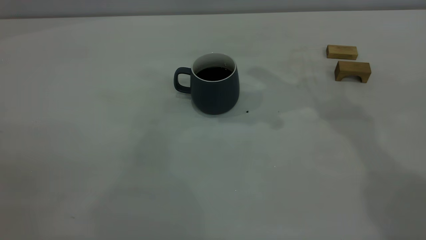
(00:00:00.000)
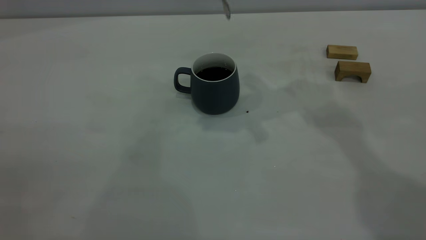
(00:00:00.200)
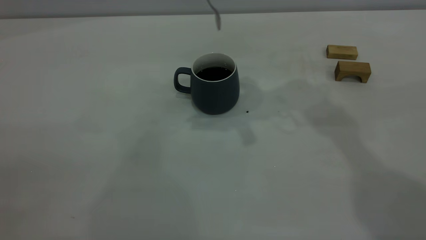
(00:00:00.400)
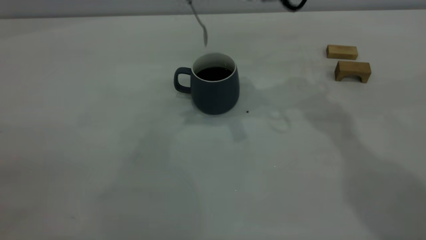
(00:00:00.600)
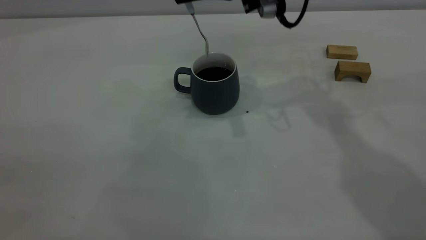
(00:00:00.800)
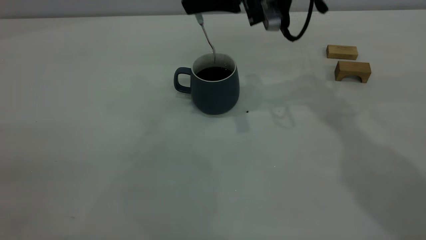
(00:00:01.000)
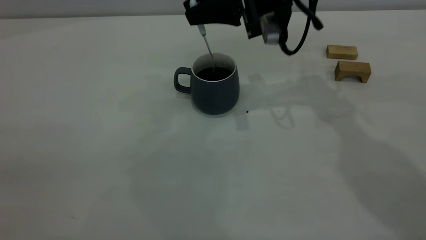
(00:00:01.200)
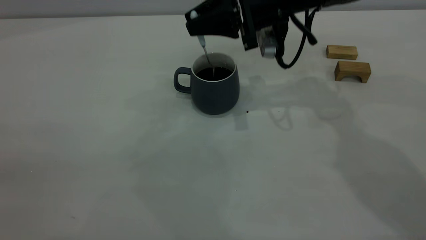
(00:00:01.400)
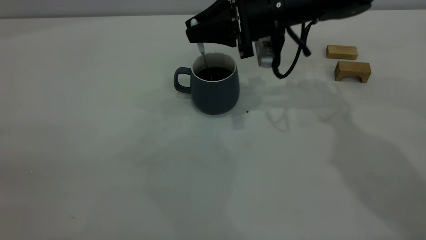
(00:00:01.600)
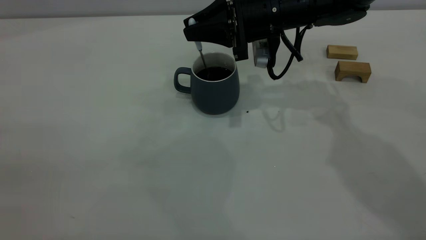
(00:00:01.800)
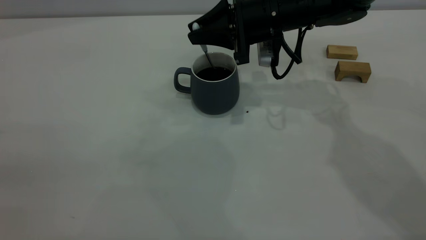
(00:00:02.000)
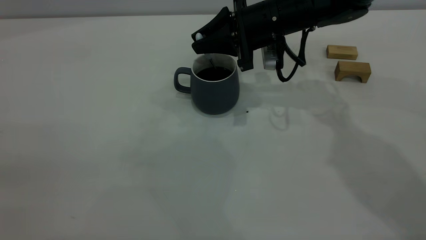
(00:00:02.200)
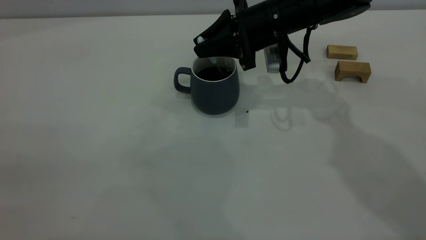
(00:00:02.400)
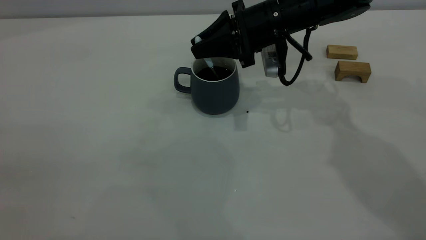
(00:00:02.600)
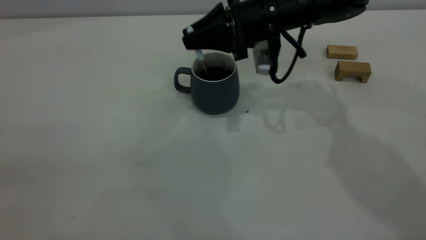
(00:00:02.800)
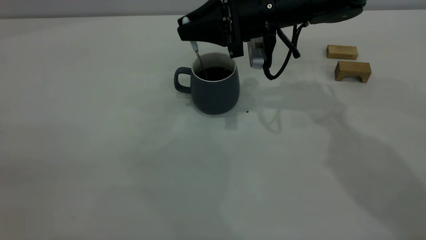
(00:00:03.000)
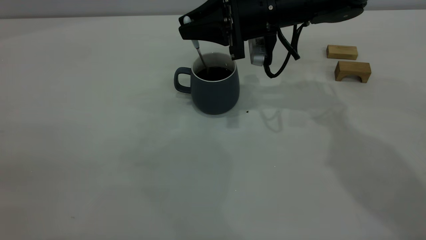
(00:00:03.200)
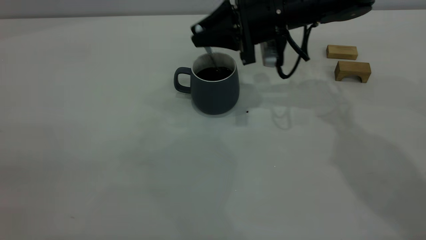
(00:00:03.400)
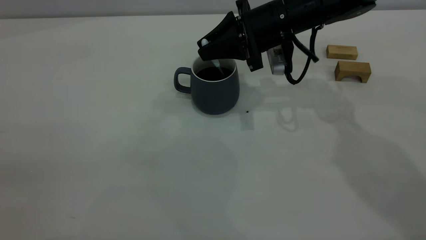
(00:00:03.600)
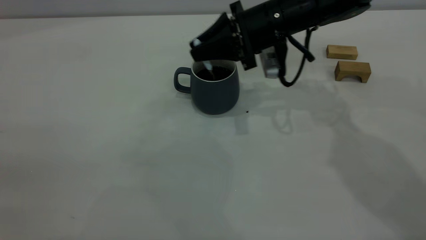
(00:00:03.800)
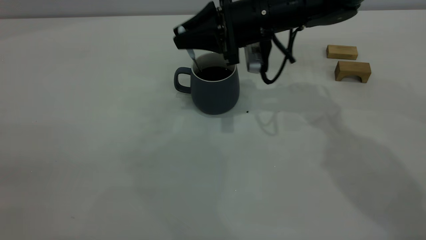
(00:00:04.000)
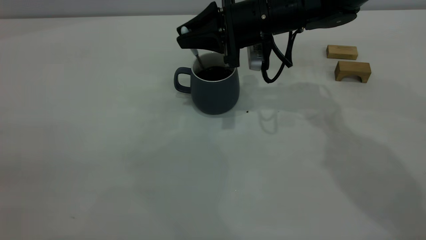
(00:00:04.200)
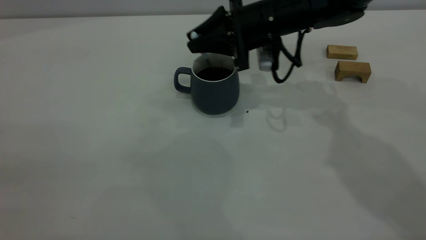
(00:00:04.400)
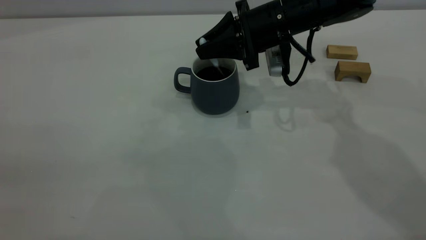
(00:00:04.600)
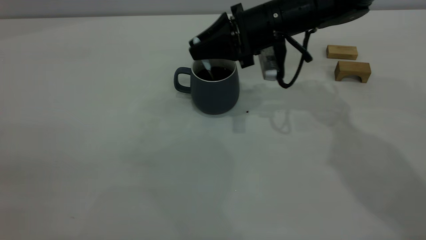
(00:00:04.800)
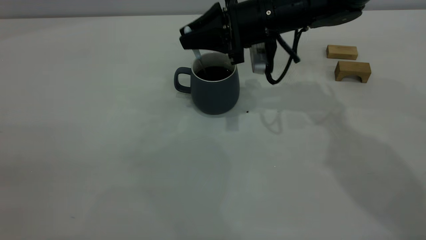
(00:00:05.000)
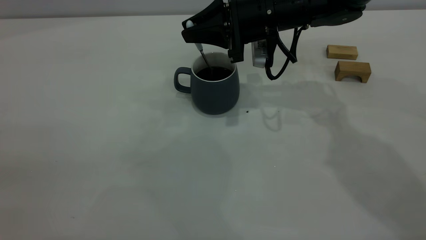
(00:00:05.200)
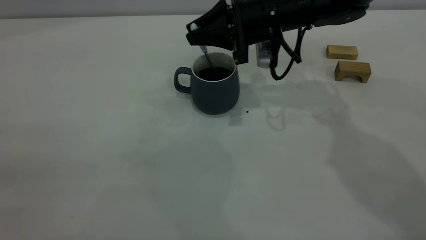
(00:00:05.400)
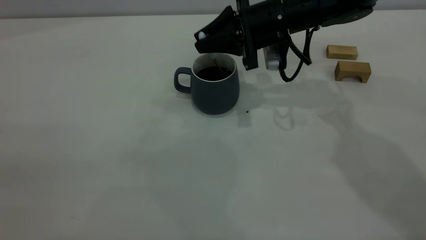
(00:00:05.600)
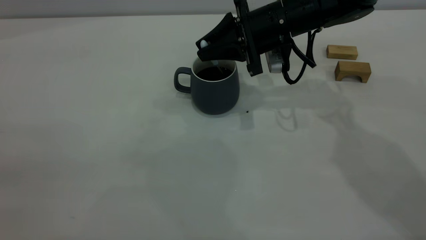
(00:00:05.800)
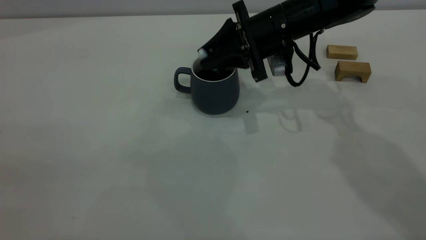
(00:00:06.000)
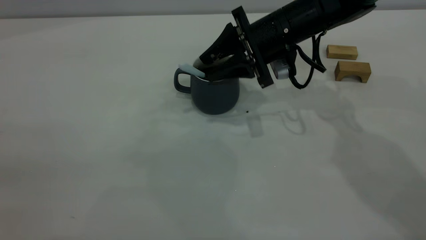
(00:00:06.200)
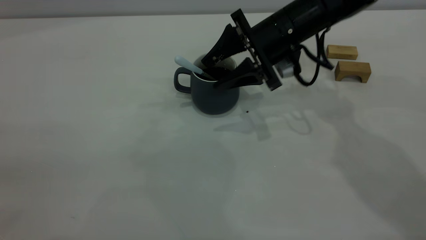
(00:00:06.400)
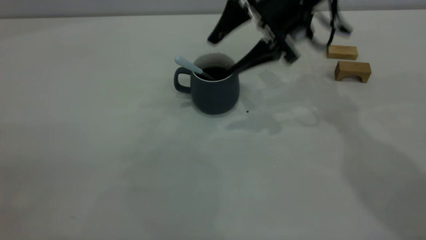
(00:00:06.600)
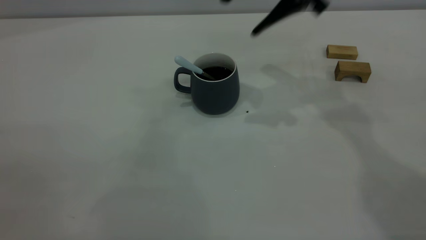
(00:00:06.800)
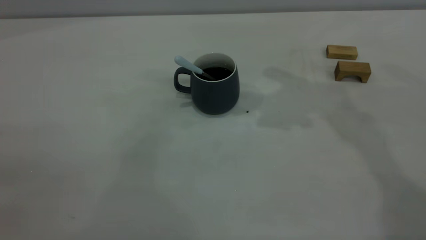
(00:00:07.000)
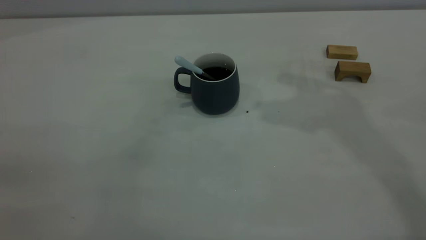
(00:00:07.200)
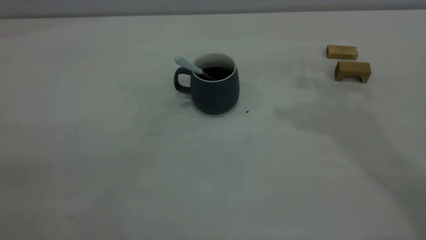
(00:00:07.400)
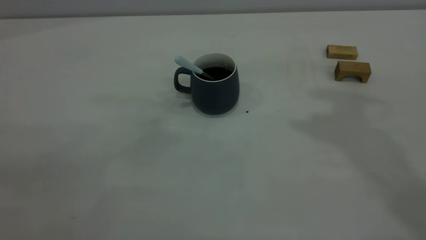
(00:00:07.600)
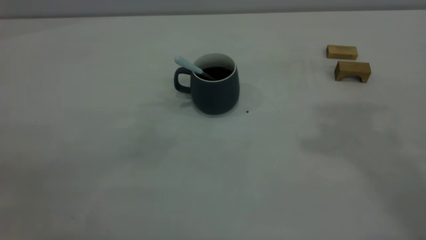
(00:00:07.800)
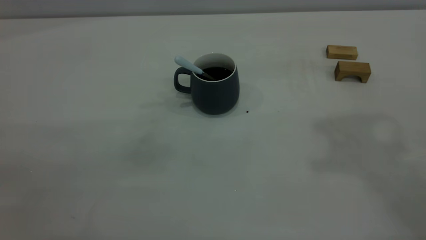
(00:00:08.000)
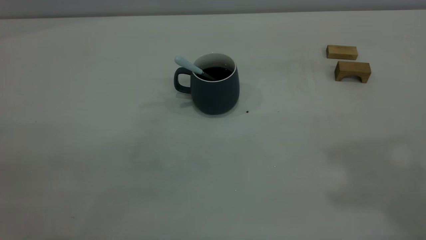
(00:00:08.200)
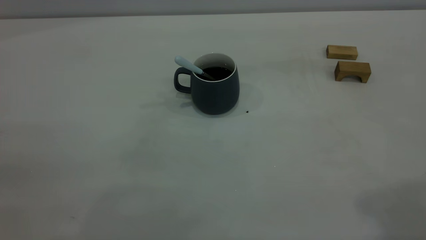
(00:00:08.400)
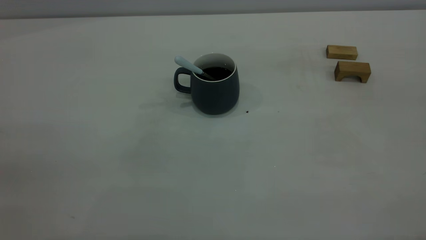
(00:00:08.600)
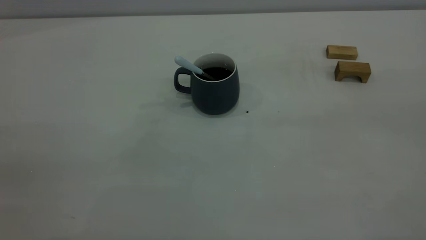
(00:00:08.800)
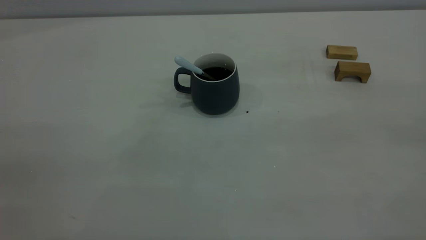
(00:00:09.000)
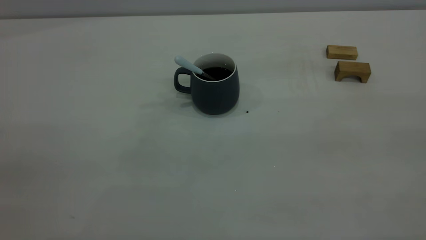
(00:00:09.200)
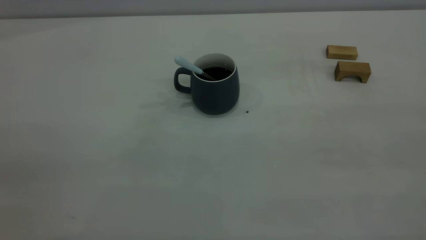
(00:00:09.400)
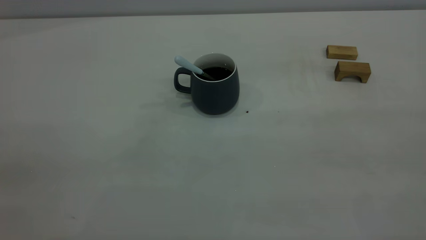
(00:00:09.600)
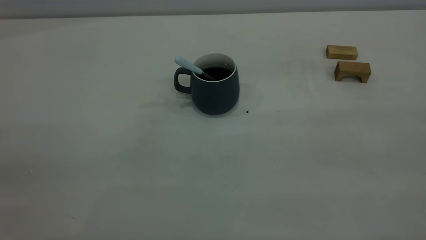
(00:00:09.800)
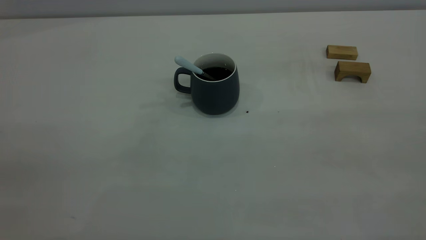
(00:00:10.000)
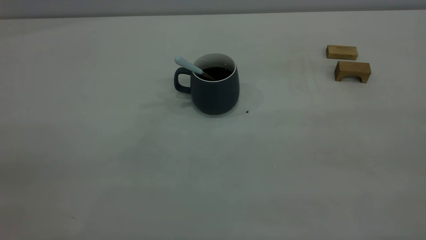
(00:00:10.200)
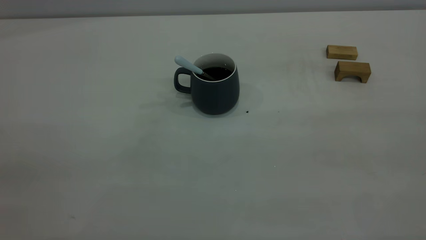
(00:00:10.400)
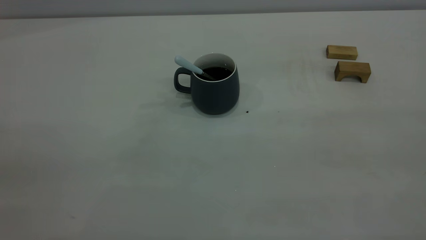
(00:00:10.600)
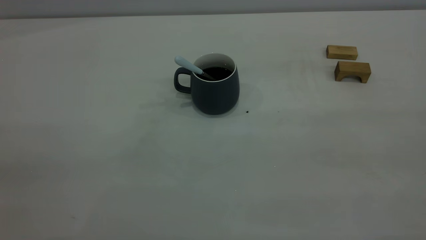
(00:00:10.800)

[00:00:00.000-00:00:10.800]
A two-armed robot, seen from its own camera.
Step, 00:00:00.000 to 00:00:06.600: Stir the coffee in the cup.
00:00:00.000 to 00:00:01.600: The right gripper travels downward by approximately 15 cm.
00:00:01.600 to 00:00:04.600: The grippers make only small movements.
00:00:04.600 to 00:00:06.200: The right gripper opens.
00:00:06.200 to 00:00:07.800: The right gripper travels upward by approximately 40 cm, and closes its fingers.
